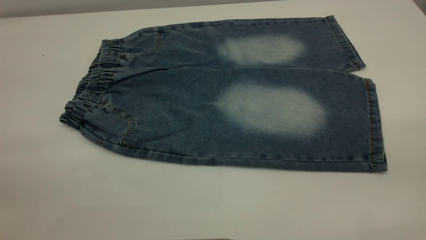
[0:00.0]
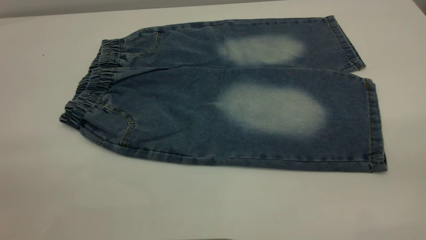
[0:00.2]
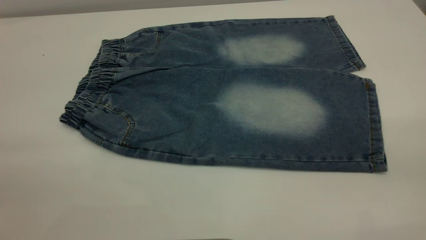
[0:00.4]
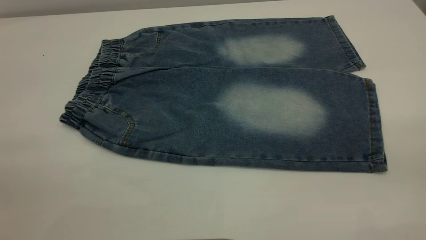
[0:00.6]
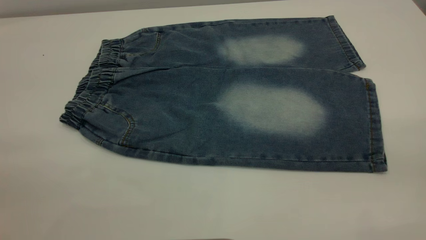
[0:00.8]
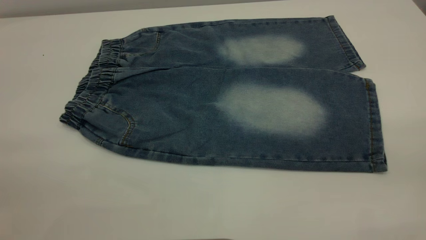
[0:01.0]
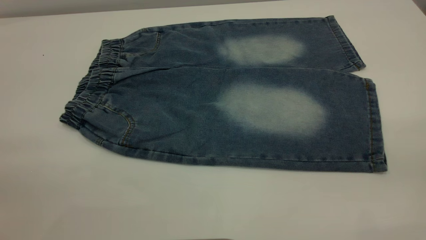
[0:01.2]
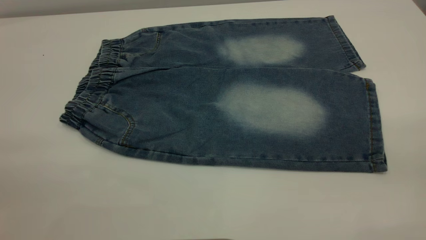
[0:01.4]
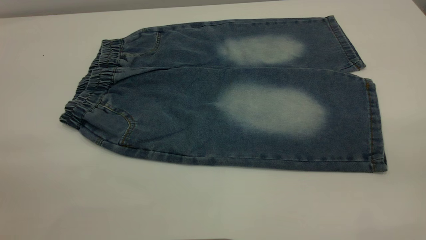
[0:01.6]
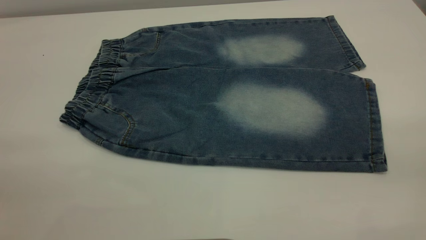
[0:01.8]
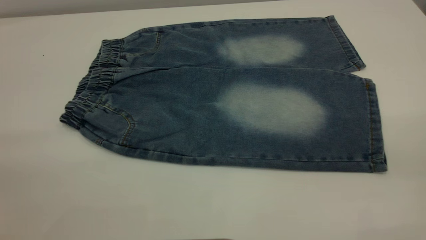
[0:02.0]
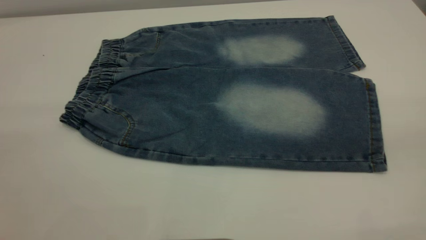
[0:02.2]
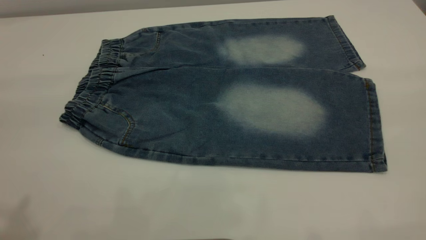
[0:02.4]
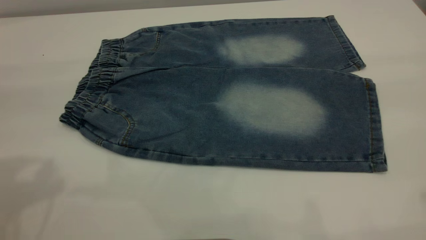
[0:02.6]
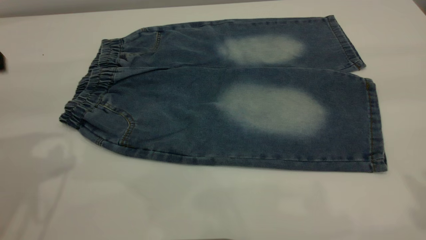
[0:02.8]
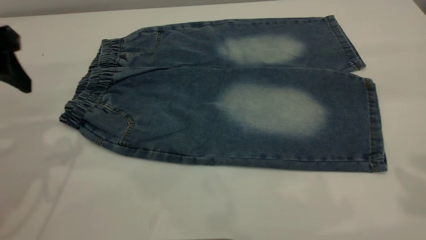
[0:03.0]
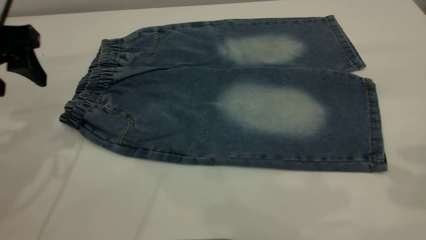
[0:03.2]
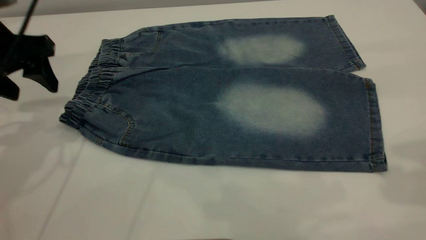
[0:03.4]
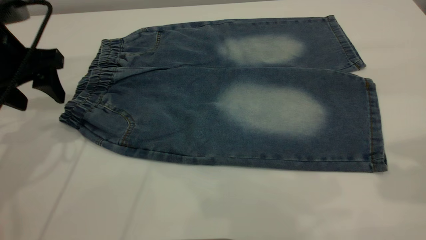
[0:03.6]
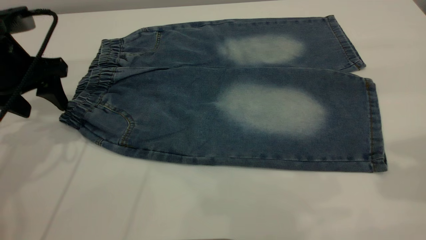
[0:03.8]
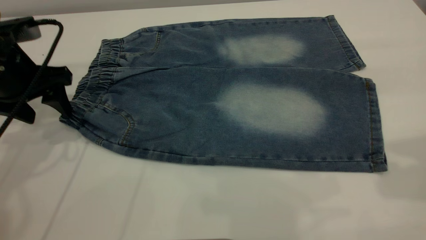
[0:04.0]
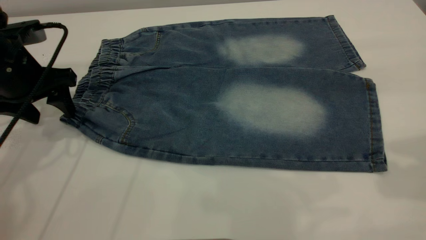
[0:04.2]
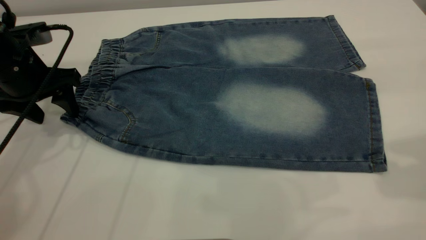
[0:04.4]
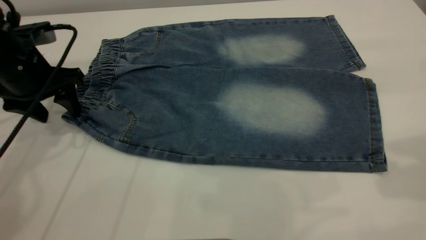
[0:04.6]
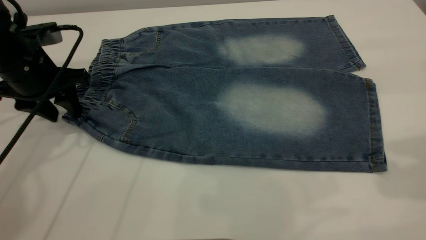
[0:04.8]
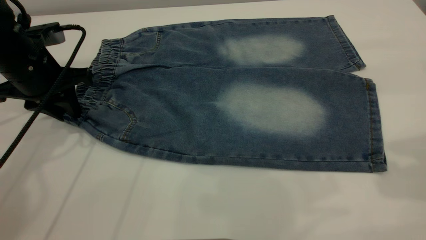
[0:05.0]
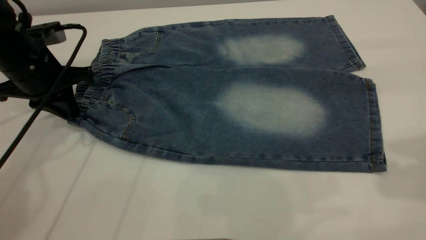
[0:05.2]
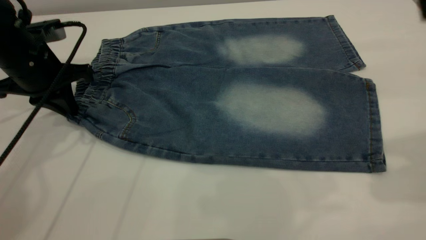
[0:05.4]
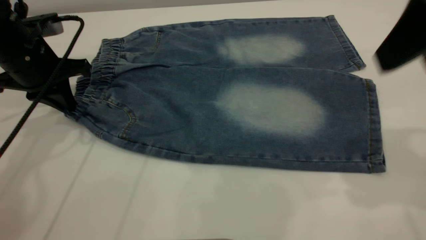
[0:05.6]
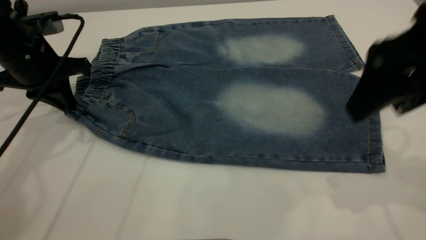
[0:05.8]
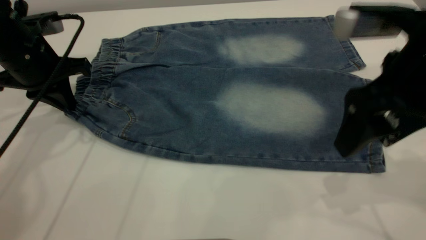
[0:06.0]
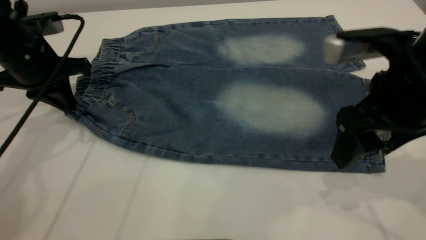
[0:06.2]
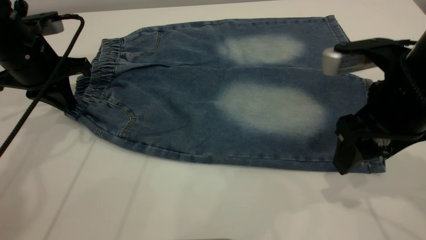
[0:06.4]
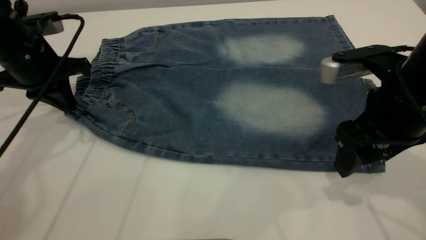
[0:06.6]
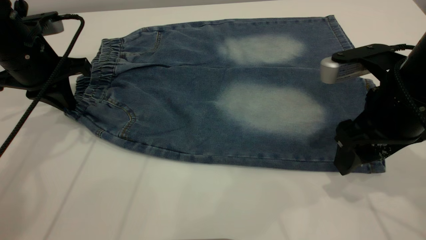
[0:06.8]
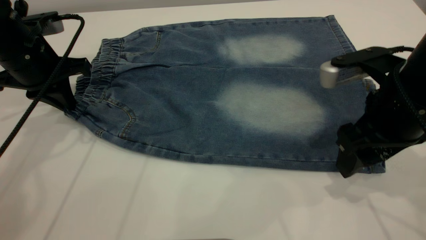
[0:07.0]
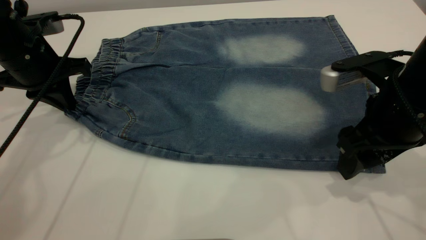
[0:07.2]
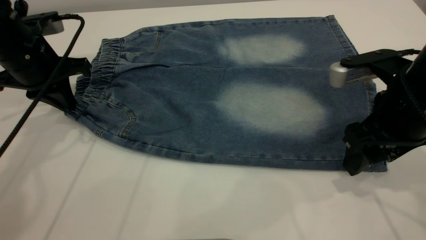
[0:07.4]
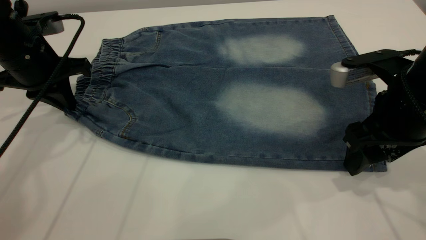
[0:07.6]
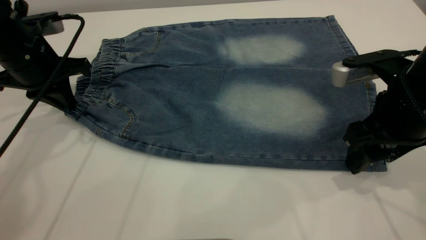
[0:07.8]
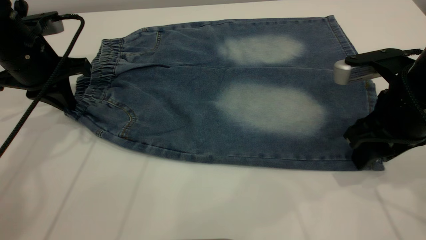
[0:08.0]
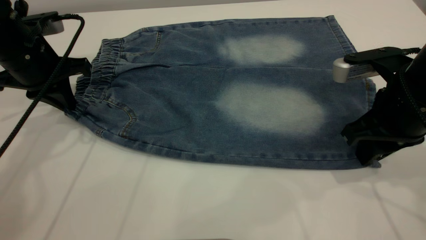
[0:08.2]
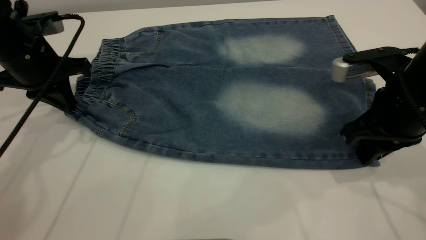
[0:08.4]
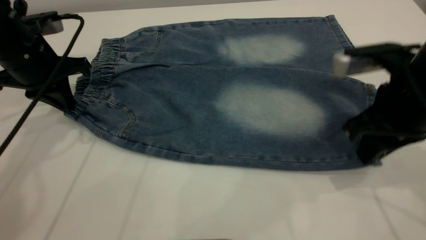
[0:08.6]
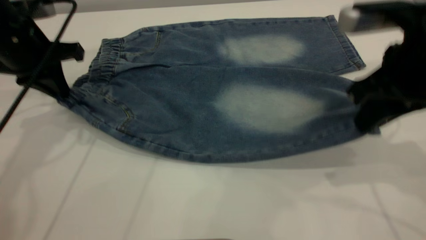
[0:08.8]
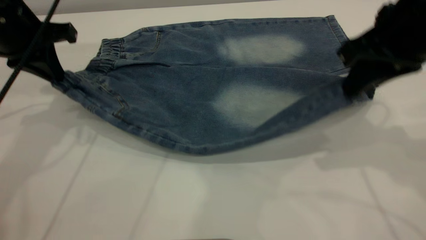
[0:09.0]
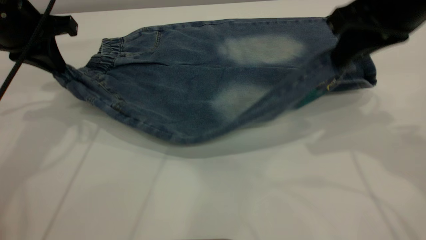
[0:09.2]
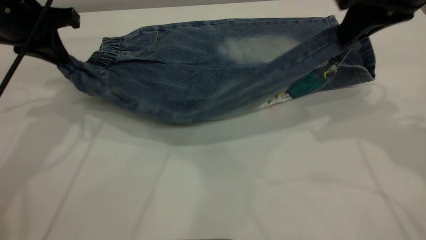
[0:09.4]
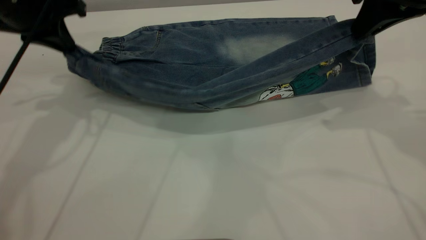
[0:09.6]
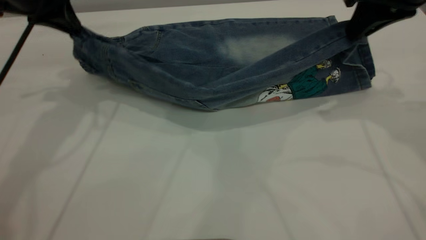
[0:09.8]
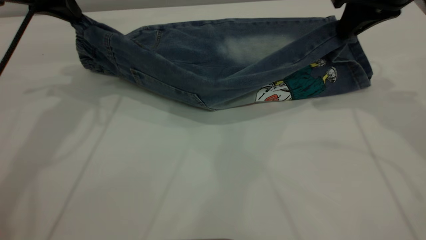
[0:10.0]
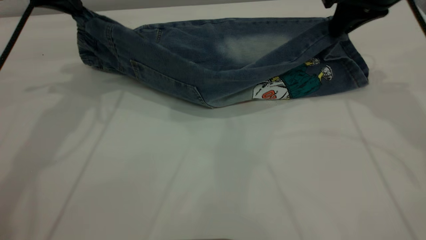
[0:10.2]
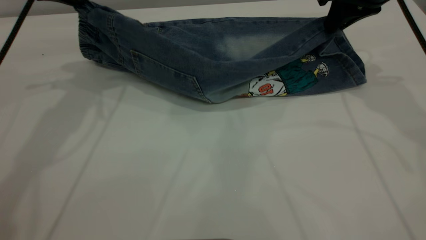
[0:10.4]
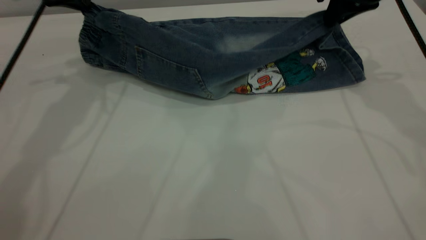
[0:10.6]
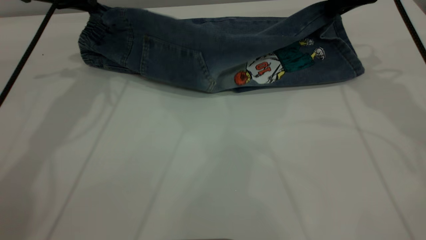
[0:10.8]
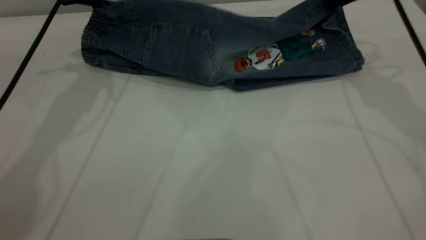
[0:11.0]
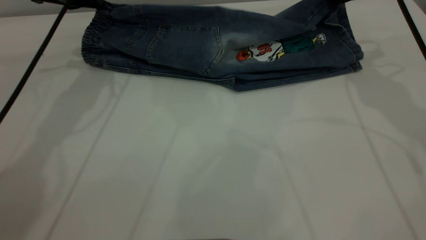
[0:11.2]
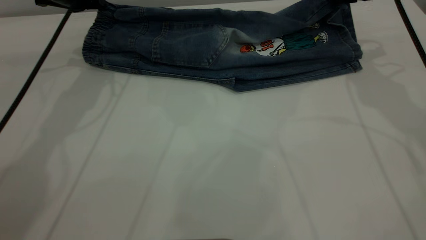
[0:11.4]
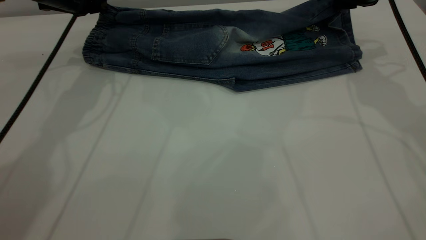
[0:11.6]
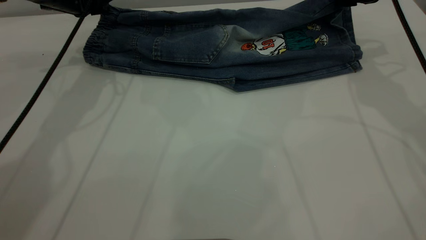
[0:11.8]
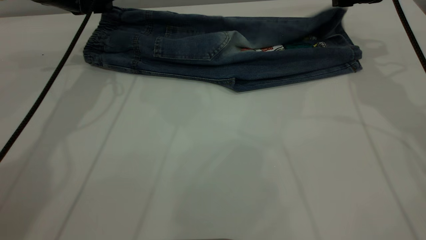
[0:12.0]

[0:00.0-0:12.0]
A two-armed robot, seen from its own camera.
0:00.0 to 0:01.6: Both grippers stay put.
0:01.6 to 0:03.0: The left gripper goes approximately 30 cm forward.
0:03.0 to 0:04.4: The left gripper is displaced downward and forward by about 10 cm.
0:04.4 to 0:06.0: The left gripper closes up. Meanwhile the right gripper goes some 15 cm downward and to the left.
0:06.0 to 0:07.6: The right gripper moves downward, roughly 5 cm.
0:07.6 to 0:09.0: The right gripper travels upward by about 10 cm, and closes its fingers. Meanwhile the left gripper heads upward, covering some 5 cm.
0:09.0 to 0:10.4: The left gripper travels forward by roughly 5 cm. Meanwhile the right gripper goes some 15 cm forward.
0:10.4 to 0:12.0: The left gripper travels downward and forward by approximately 10 cm, and opens its fingers. Meanwhile the right gripper shifts by some 5 cm, and opens its fingers.

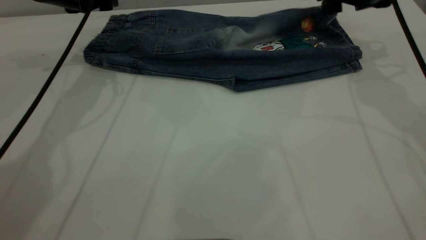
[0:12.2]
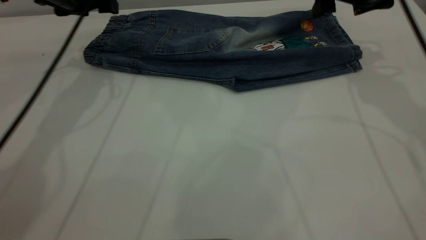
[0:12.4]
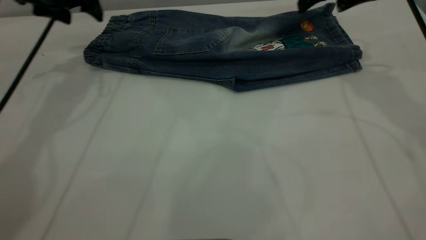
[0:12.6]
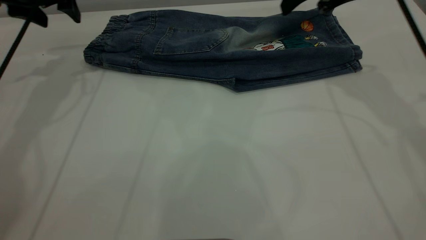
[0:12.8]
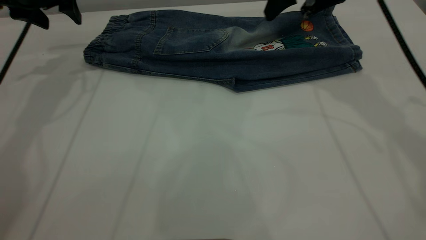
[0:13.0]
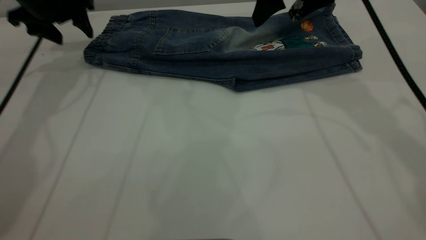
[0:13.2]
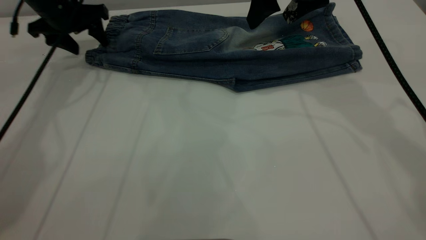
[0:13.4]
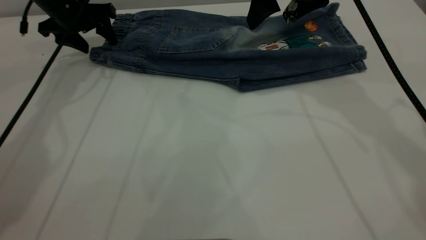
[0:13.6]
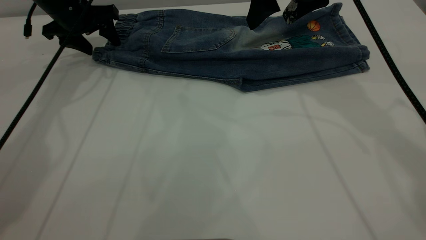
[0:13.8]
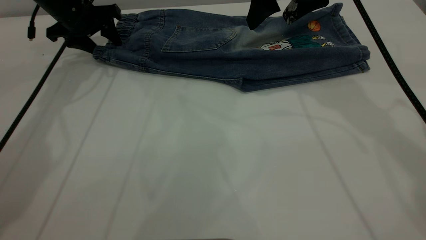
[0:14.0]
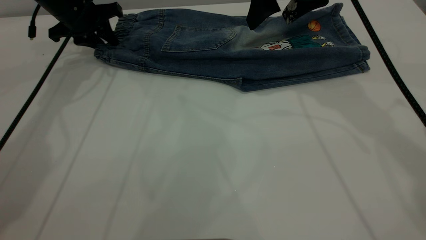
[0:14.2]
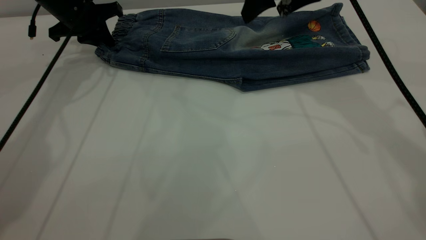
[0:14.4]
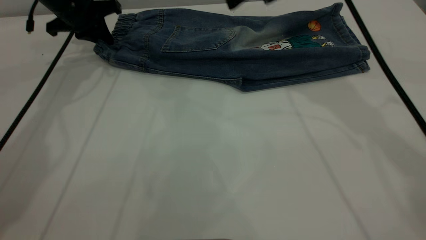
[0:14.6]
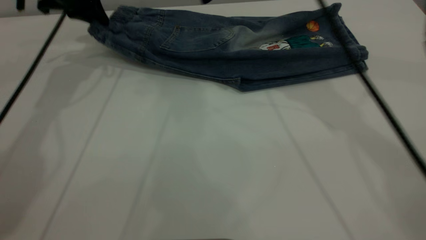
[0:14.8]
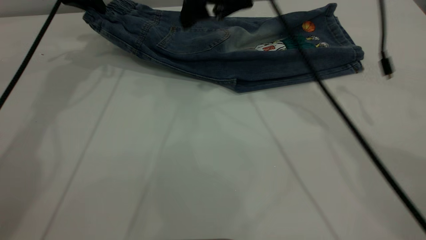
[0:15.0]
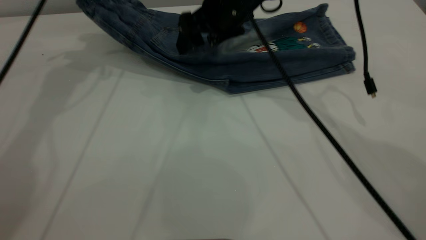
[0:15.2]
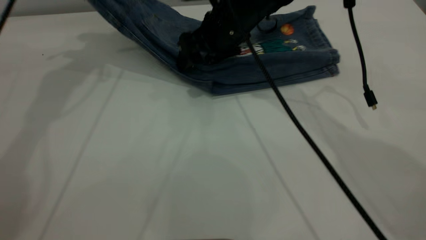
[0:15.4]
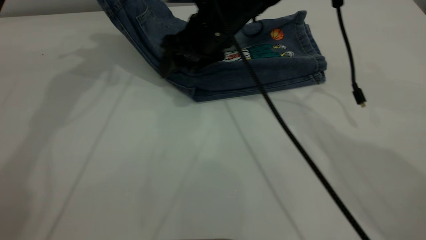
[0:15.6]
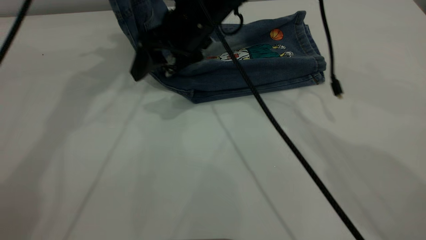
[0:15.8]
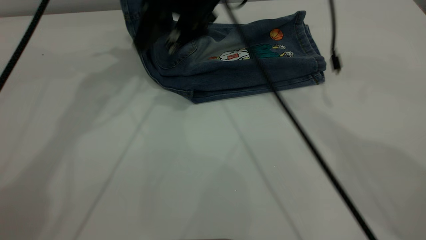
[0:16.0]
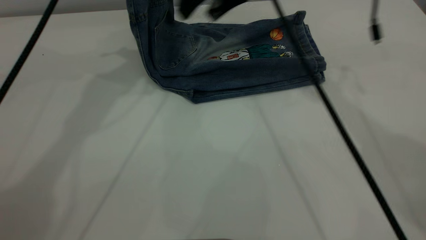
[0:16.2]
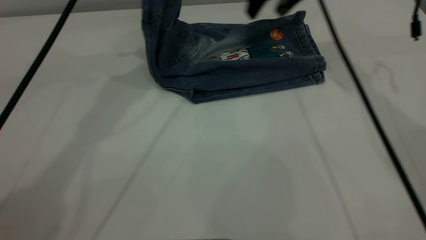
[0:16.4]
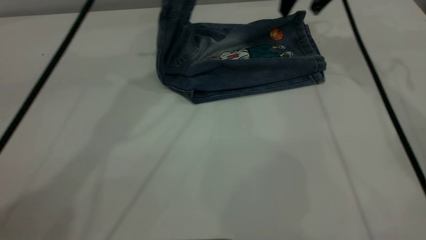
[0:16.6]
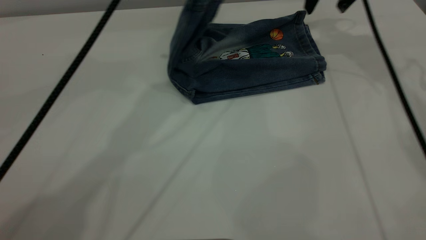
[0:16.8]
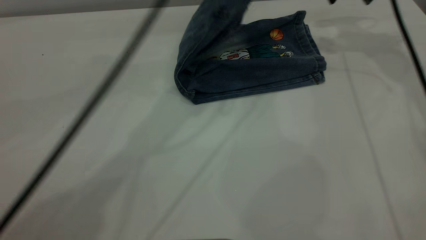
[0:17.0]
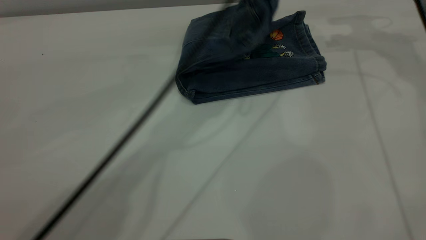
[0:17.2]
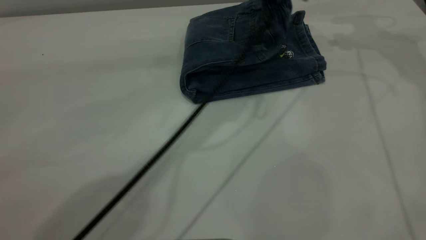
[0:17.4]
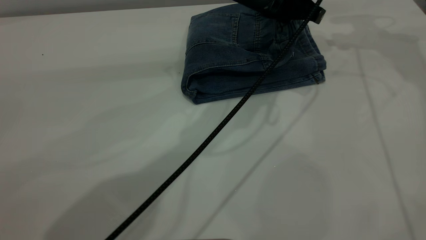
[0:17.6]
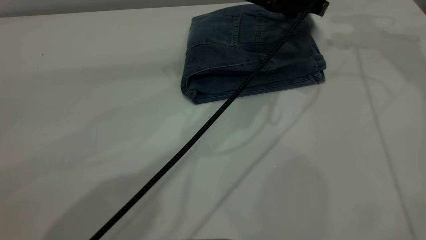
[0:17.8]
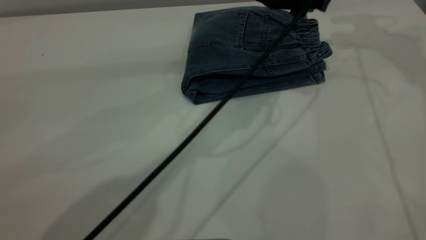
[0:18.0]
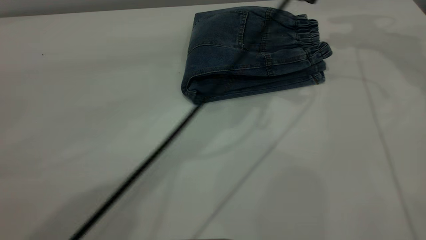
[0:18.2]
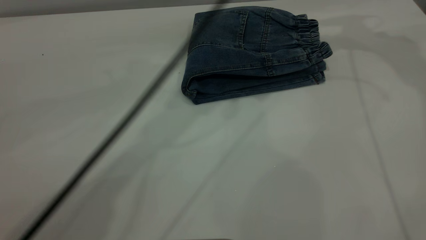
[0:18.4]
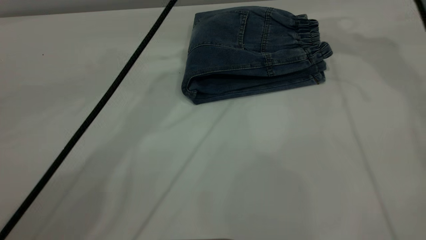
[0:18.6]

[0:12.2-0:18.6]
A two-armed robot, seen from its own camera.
Step, 0:12.6 to 0:18.2: Fold the pants from left to right.
0:12.2 to 0:13.8: The left gripper changes place by some 5 cm, while the right gripper moves to the left, some 10 cm.
0:13.8 to 0:15.4: The left gripper heads upward, covering some 15 cm, and closes its fingers. The right gripper shifts roughly 15 cm to the left and downward.
0:15.4 to 0:17.0: The right gripper goes approximately 25 cm to the right and upward, while the left gripper goes some 25 cm to the right.
0:17.0 to 0:18.6: The right gripper goes some 10 cm upward and to the left. The left gripper opens its fingers.
